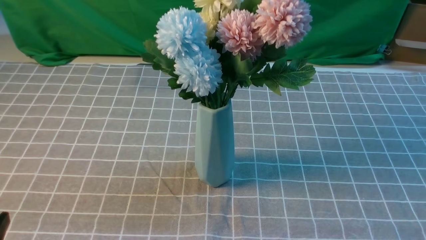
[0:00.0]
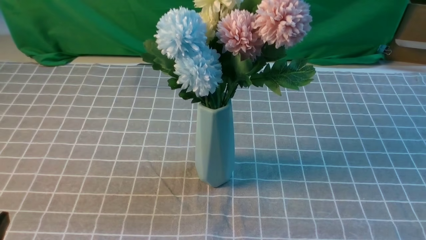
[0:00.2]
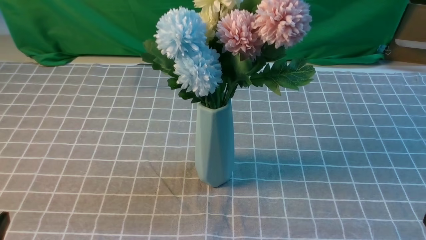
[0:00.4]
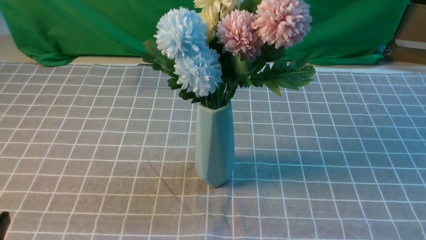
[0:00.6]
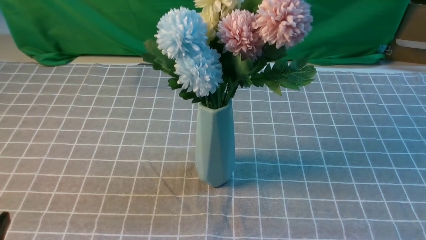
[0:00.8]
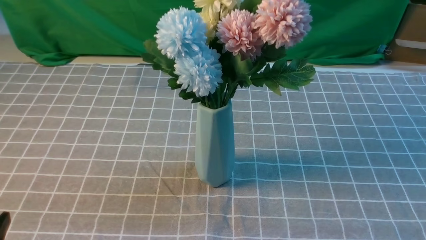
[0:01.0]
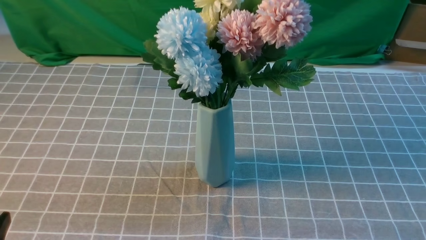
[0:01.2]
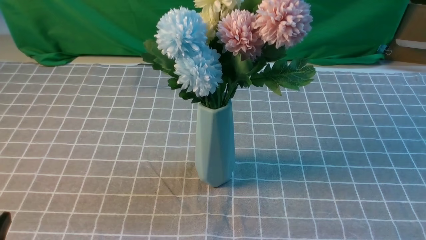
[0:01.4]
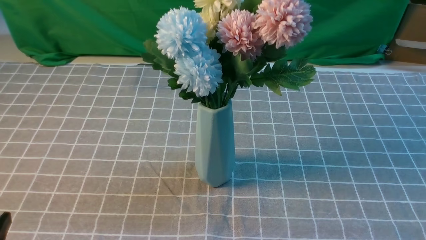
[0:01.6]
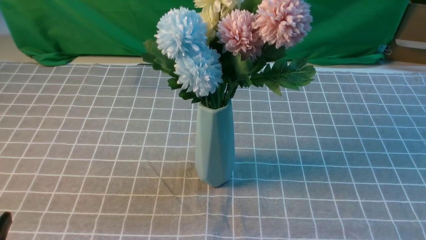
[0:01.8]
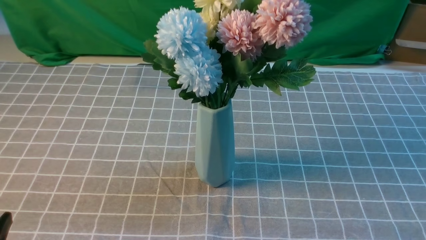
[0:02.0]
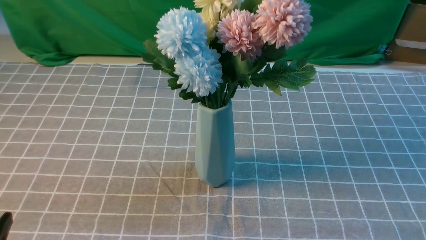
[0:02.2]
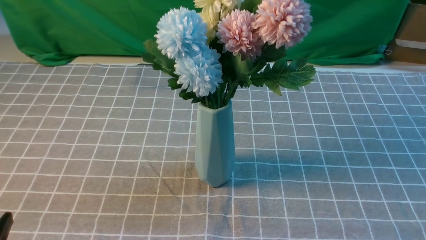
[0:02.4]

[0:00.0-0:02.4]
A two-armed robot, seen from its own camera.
Task of the whole recording: insert the flowers into the vase on the table with the grey tablecloth.
0:01.2 to 0:02.4: Both grippers stay put.
